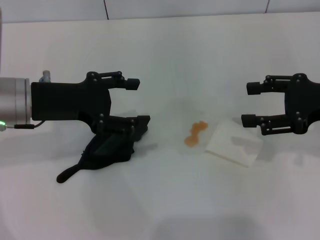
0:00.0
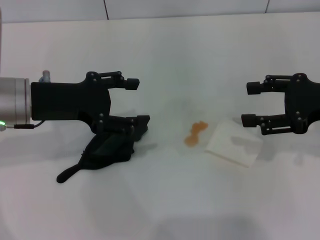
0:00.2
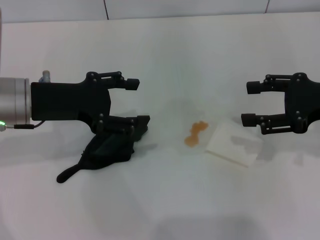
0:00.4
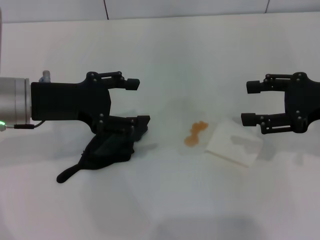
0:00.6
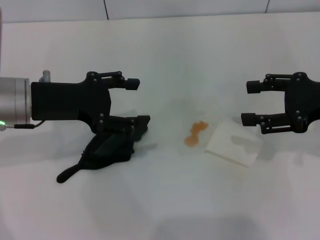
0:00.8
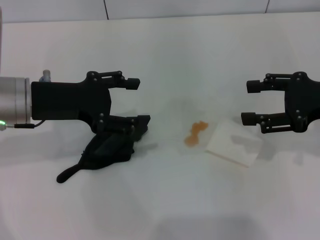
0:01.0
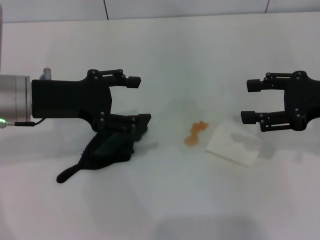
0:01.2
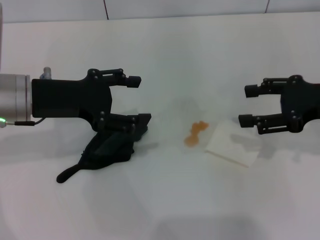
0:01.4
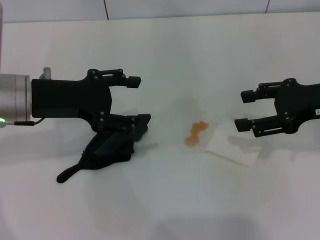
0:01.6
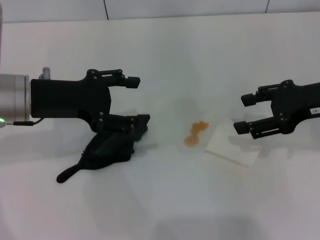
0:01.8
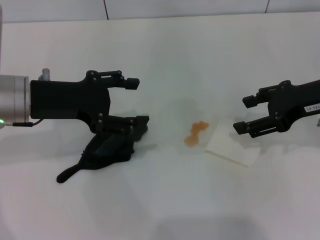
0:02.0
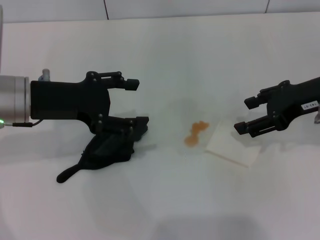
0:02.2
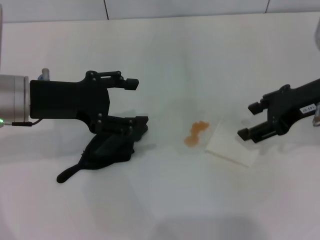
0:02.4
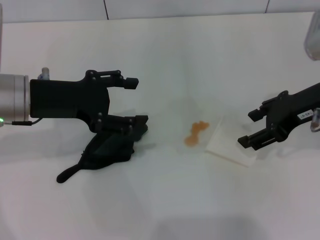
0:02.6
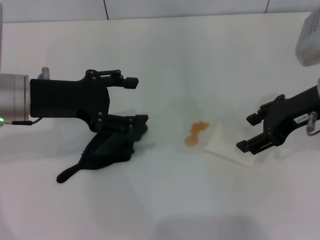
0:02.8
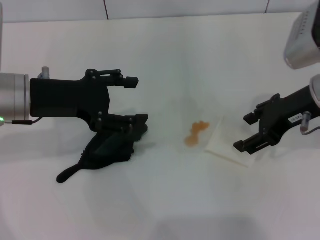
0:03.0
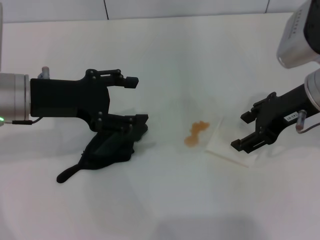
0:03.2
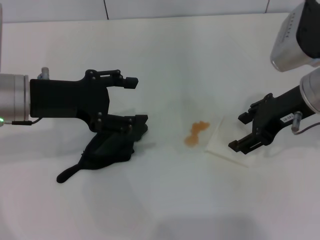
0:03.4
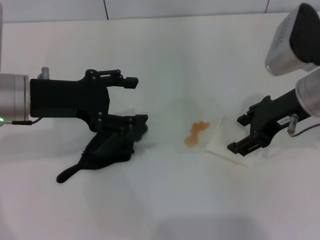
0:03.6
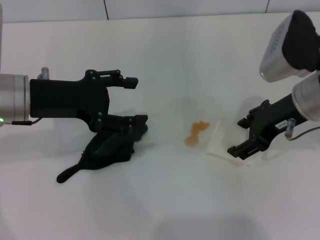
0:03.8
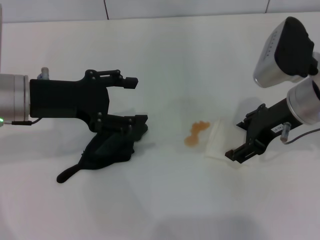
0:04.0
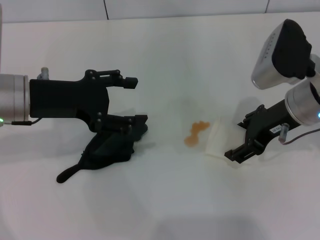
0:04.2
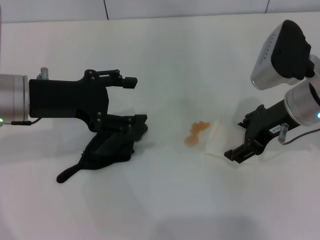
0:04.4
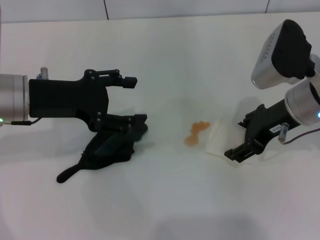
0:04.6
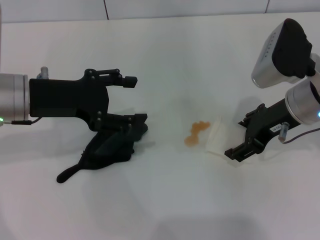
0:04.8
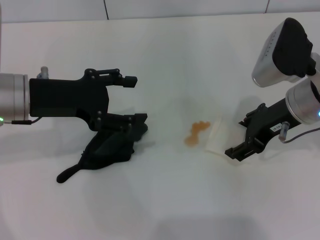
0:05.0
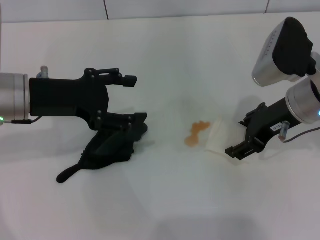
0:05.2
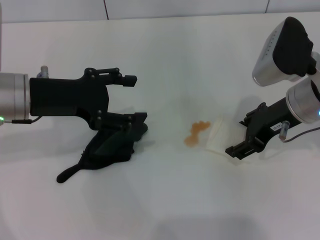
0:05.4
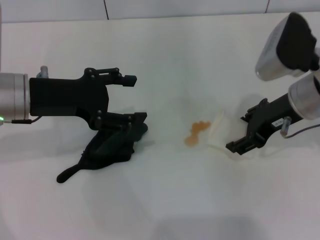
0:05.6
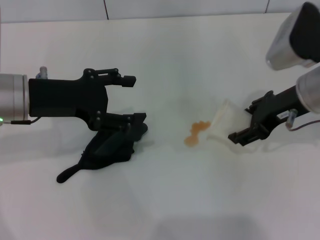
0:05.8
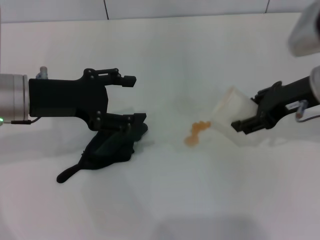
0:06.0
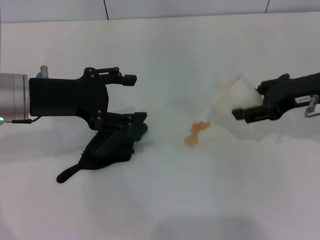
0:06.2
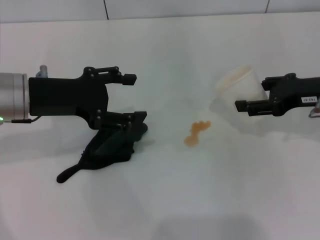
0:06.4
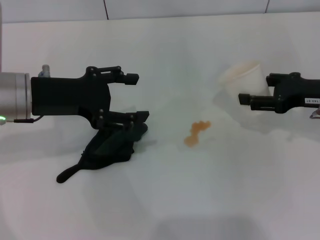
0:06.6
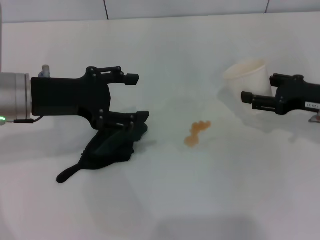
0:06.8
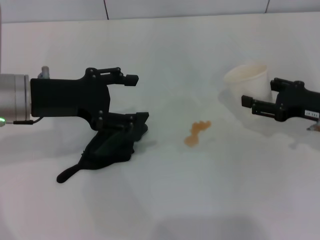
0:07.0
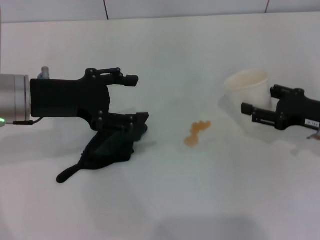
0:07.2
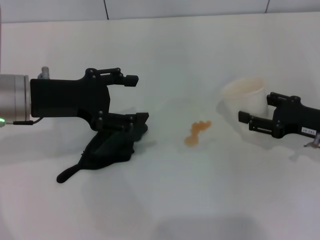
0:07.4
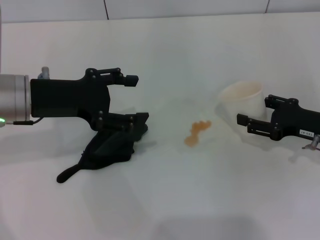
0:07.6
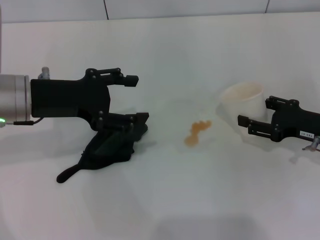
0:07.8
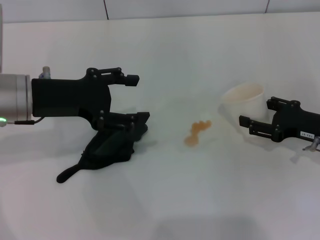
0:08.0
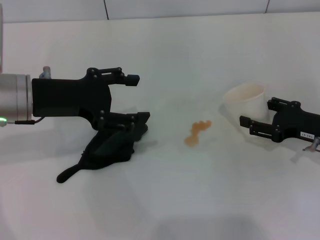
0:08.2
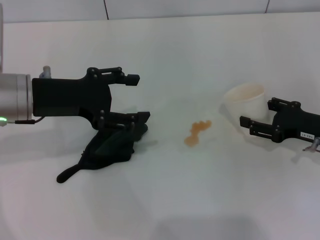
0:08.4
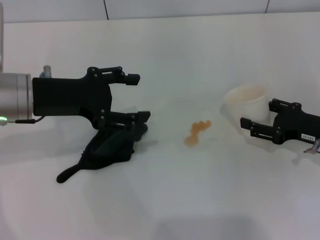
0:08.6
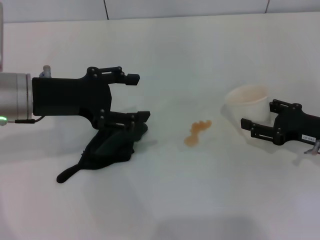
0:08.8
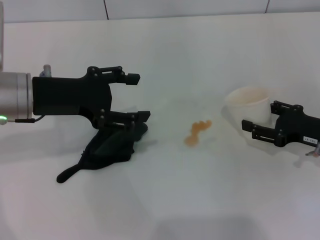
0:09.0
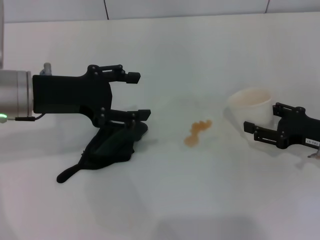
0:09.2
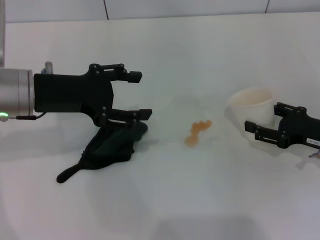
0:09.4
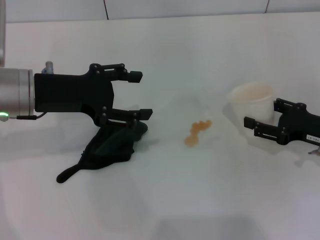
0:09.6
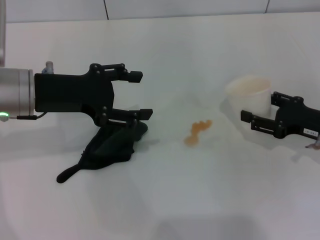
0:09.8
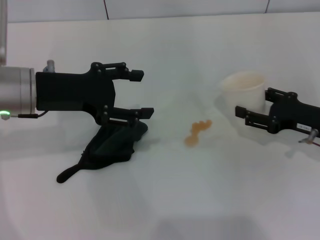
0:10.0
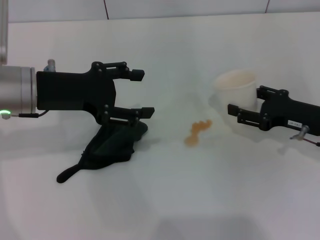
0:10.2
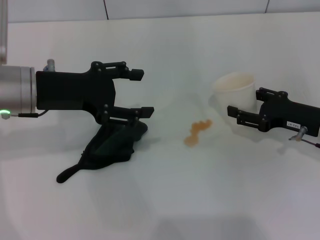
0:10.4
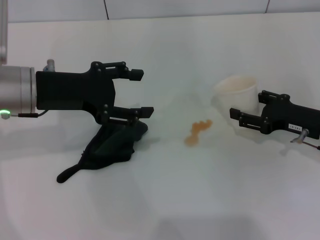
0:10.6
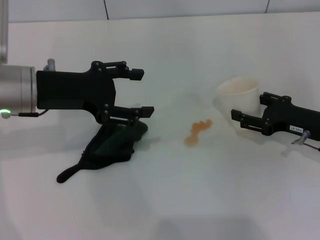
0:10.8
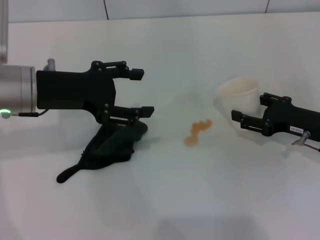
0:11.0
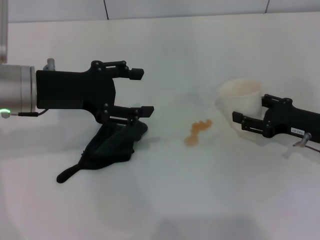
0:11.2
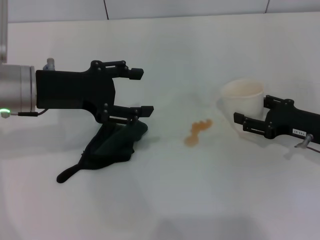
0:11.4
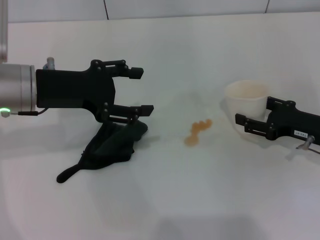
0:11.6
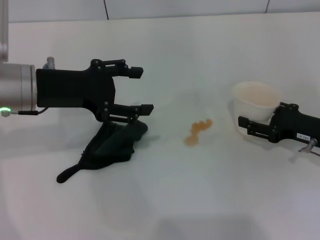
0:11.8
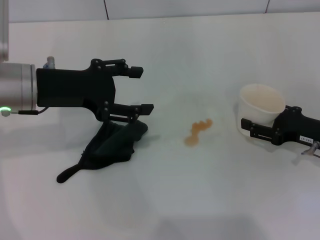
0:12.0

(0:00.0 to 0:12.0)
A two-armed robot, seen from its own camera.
Step, 0:00.0 - 0:04.6: Grasp the paper cup with the right gripper.
0:00.0 - 0:01.6: There are only small adjustments of the grippers.
0:01.6 - 0:03.0: The right gripper shifts some 5 cm to the left.
0:03.0 - 0:04.4: The grippers make only small movements.
0:04.4 - 0:06.0: The right gripper closes.
0:06.0 - 0:07.6: The right gripper moves downward and to the right, roughly 15 cm.
0:07.6 - 0:09.0: The two grippers keep their place.
0:09.0 - 0:12.0: The grippers stay close to where they were, moving slightly.

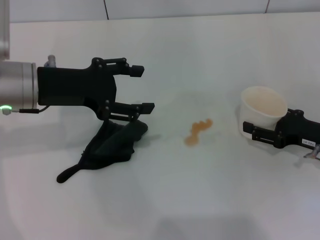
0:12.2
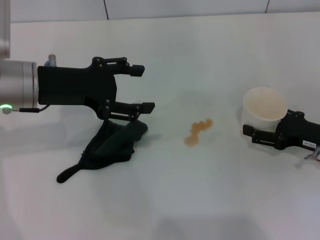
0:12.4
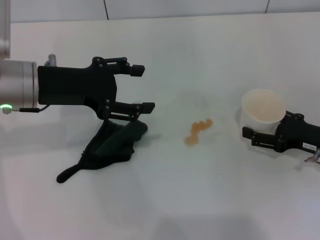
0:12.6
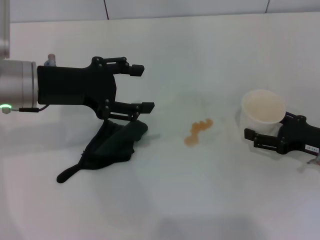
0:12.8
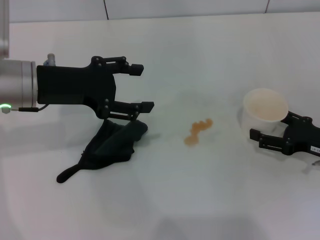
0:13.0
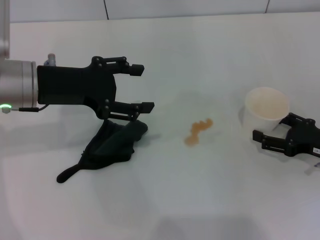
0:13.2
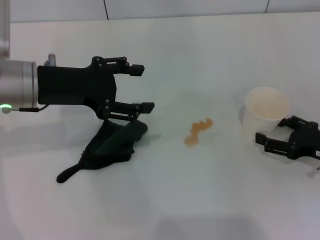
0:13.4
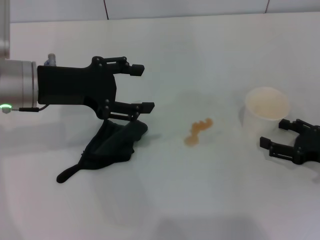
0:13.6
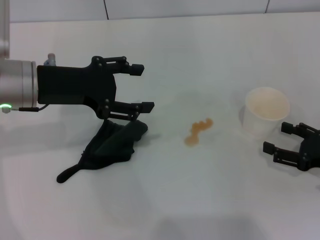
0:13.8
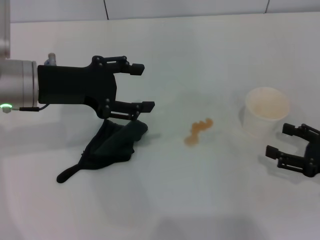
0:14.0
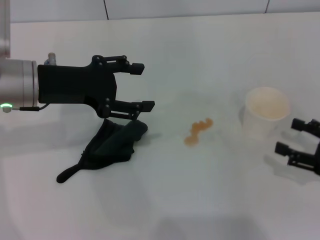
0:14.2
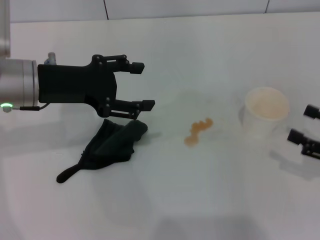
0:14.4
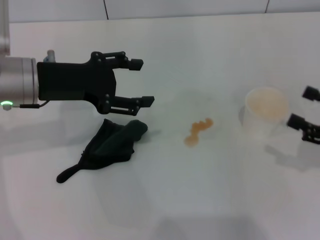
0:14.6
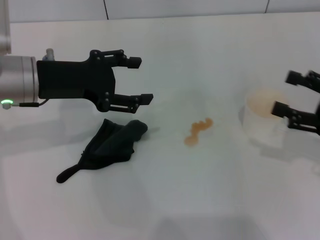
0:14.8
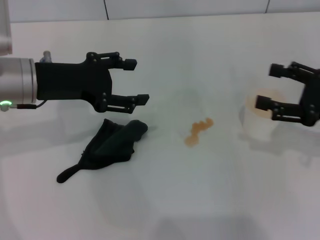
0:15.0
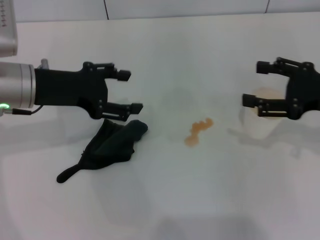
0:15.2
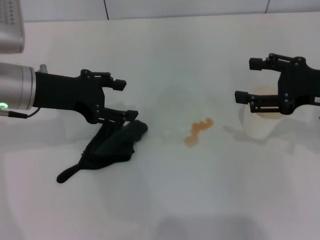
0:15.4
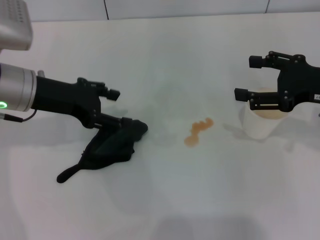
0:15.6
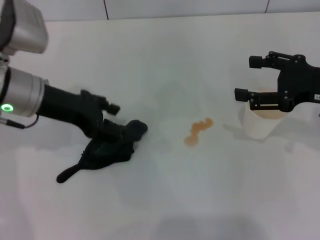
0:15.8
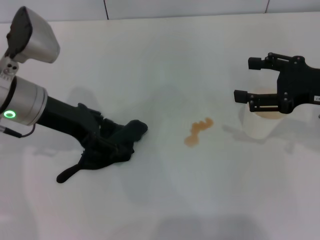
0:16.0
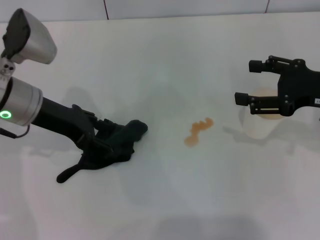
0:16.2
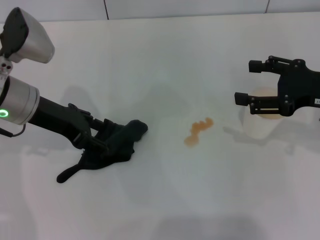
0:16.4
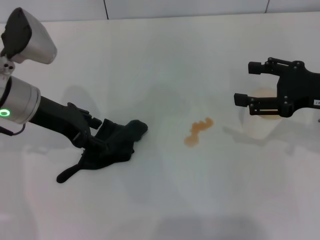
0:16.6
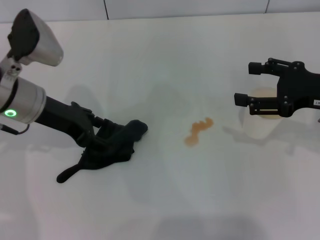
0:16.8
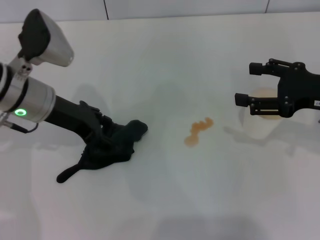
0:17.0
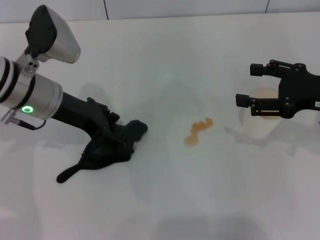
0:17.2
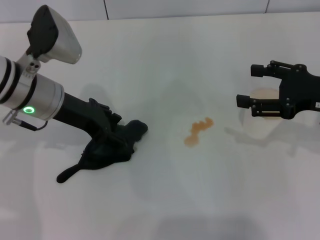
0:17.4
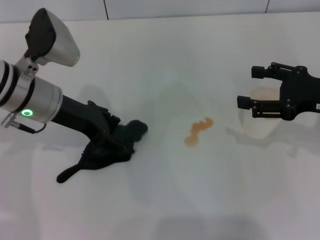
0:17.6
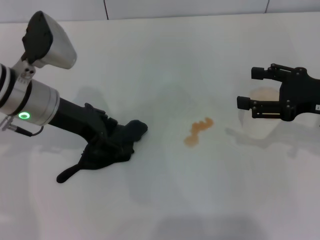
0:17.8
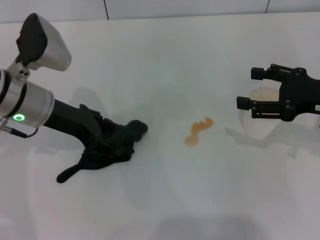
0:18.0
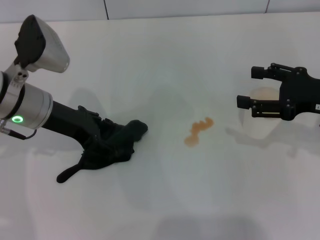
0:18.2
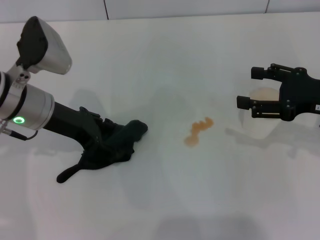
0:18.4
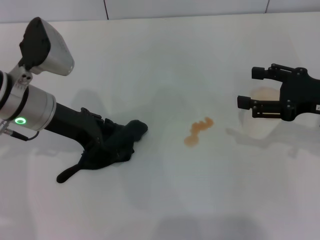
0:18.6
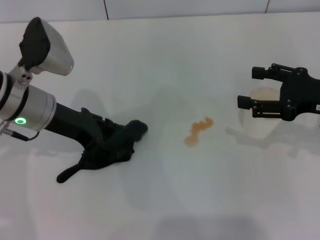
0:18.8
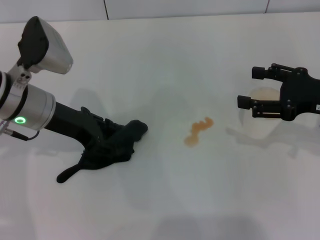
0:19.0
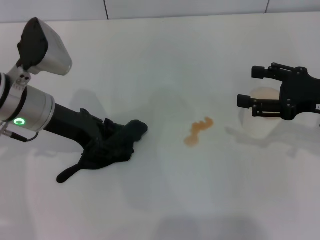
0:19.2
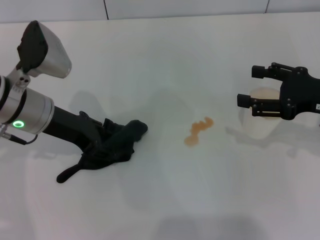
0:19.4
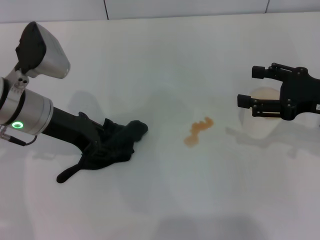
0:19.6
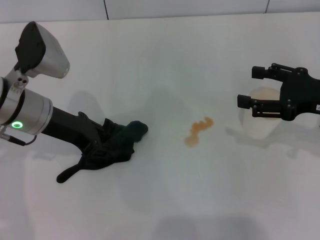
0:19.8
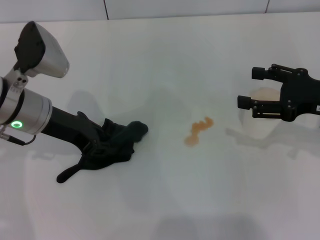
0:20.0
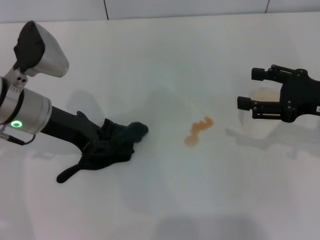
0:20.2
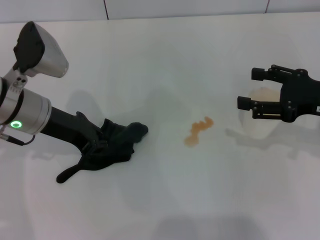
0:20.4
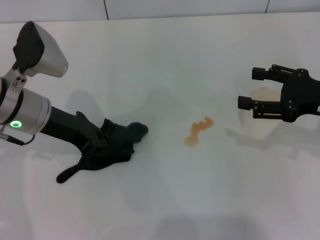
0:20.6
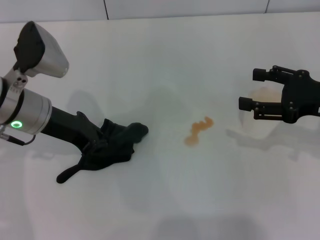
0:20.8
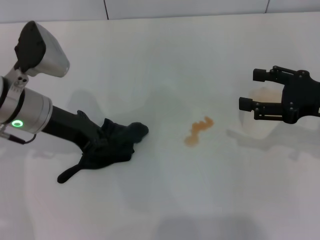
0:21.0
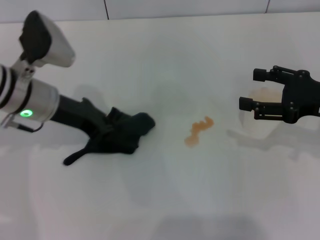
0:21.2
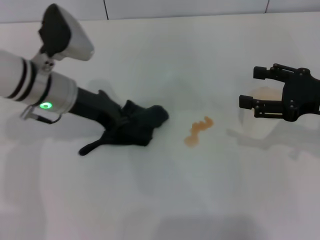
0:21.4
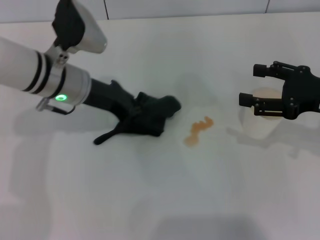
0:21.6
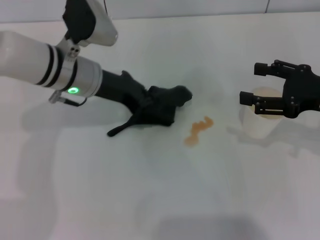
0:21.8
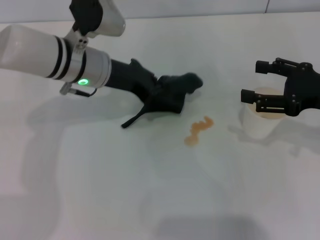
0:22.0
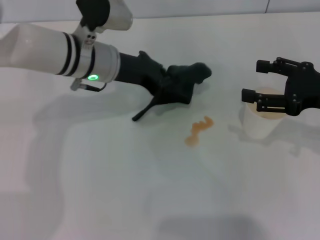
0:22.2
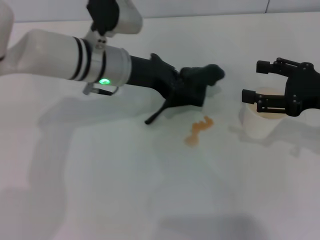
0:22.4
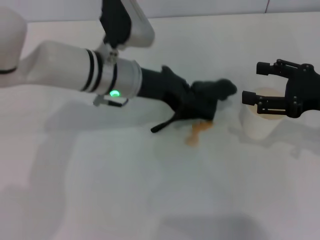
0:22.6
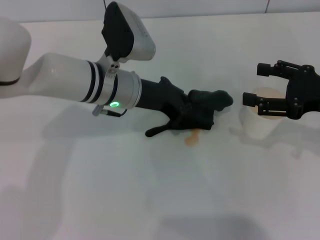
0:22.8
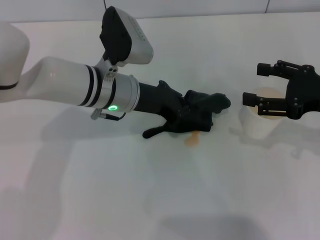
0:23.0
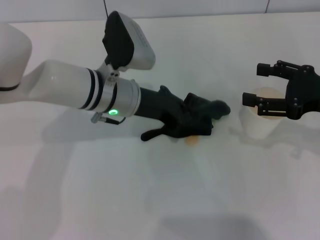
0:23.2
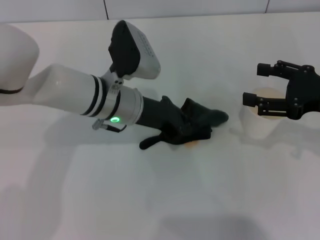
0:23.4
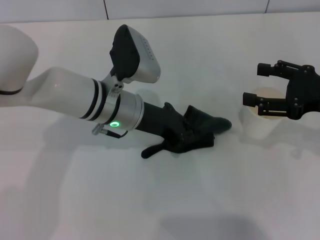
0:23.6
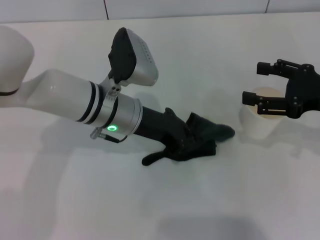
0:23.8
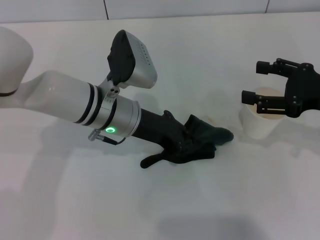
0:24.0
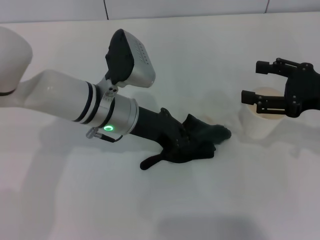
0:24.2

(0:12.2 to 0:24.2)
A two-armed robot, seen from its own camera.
Step, 0:14.2 - 0:20.8: Grasp the rag with the left gripper.
0:12.2 - 0:13.8: The right gripper changes place by about 5 cm, and opens.
0:13.8 - 0:15.2: The right gripper moves upward, roughly 10 cm.
0:16.6 - 0:18.2: The grippers make only small movements.
0:18.2 - 0:19.8: The left gripper closes.
0:19.8 - 0:21.2: The left gripper closes.
0:21.2 - 0:22.6: The left gripper shifts some 10 cm to the right.
